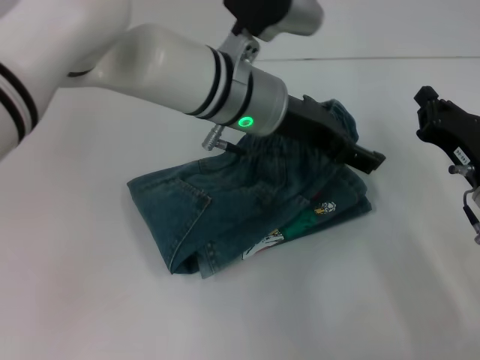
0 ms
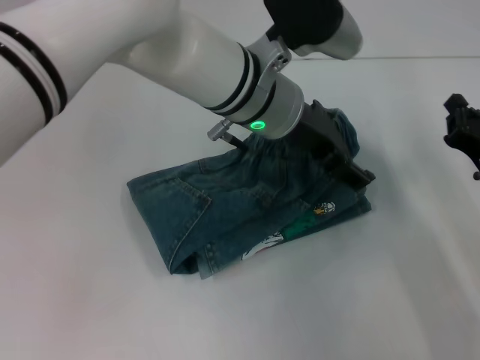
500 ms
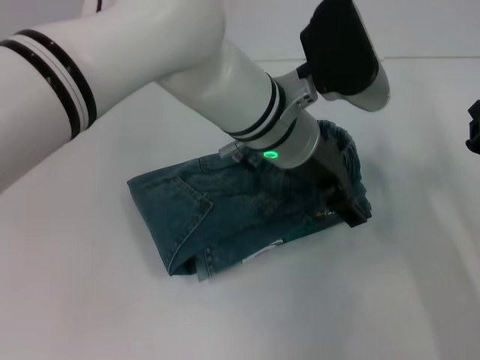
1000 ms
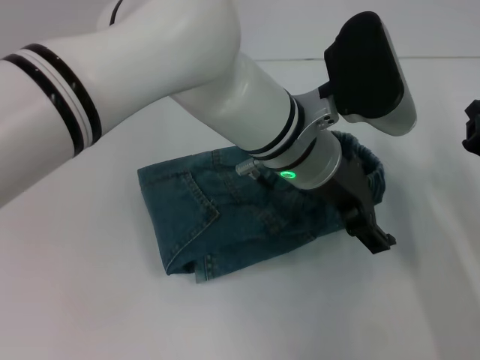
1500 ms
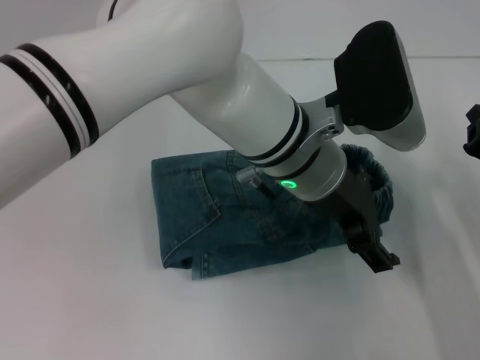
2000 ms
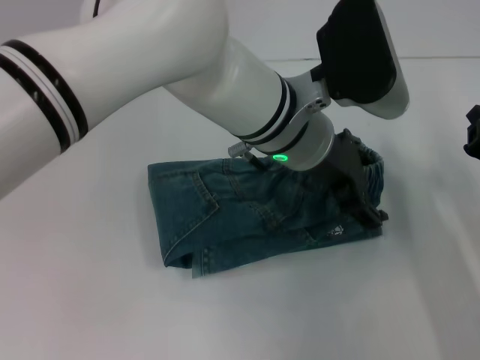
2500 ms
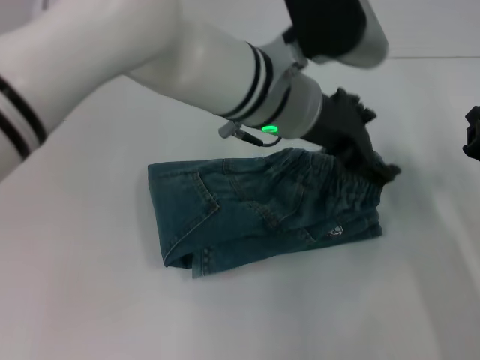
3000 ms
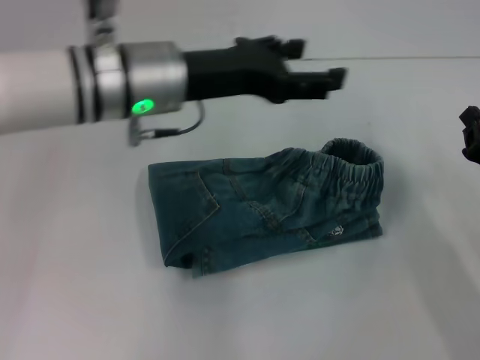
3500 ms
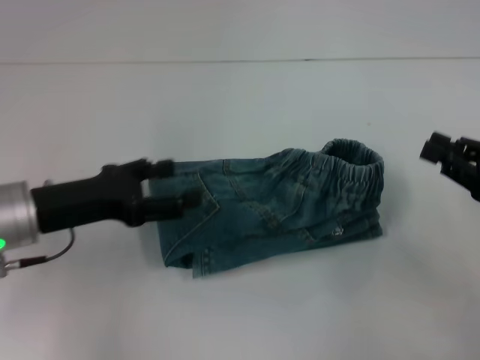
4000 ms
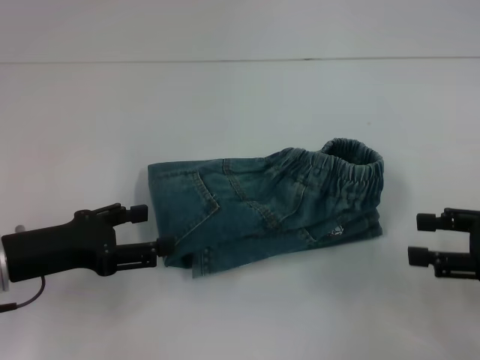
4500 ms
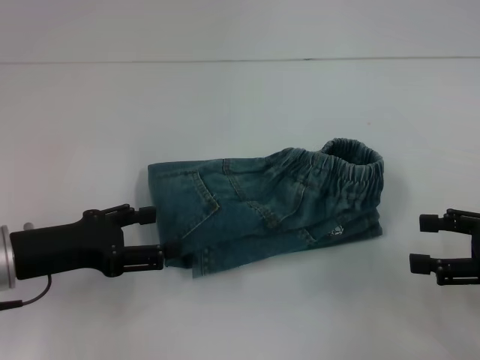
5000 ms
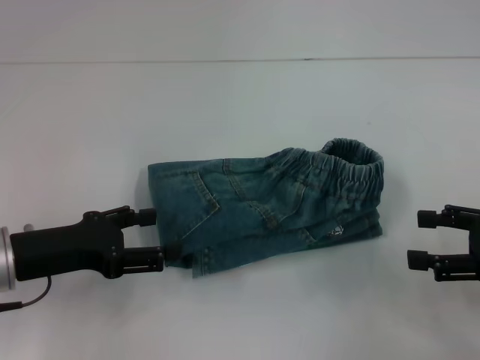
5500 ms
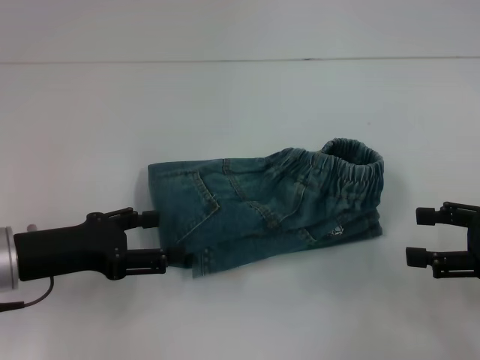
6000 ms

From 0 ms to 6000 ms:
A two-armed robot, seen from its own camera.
Step, from 0 ms to 3000 ms: Fold to the right with your left hand.
From 0 ms to 2000 ms: The left gripper shifts roughly 5 cm backward.
From 2000 ms to 4000 ms: The left gripper goes roughly 25 cm to the left. Meanwhile the right gripper heads upward, covering approximately 5 cm.
From 4000 ms to 6000 ms: The right gripper opens.
